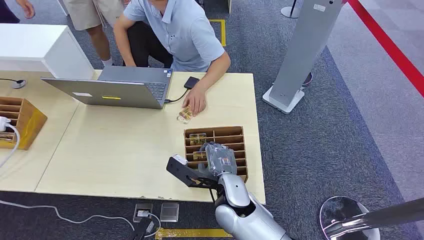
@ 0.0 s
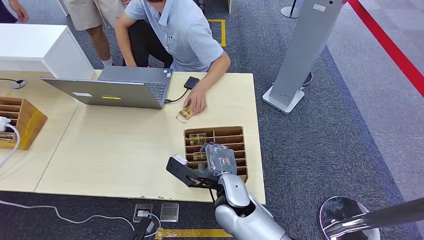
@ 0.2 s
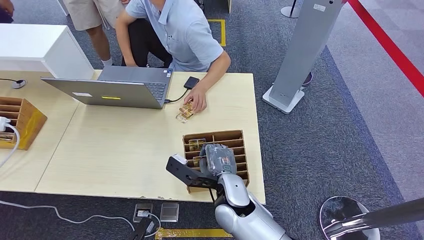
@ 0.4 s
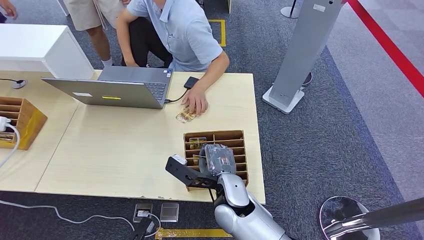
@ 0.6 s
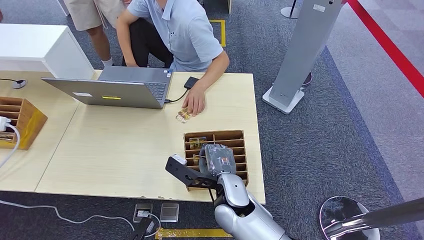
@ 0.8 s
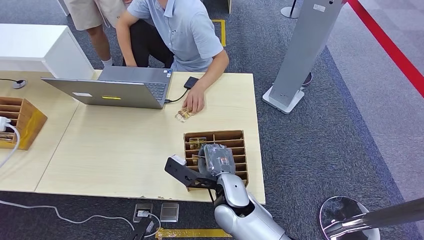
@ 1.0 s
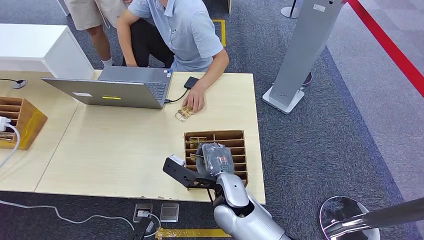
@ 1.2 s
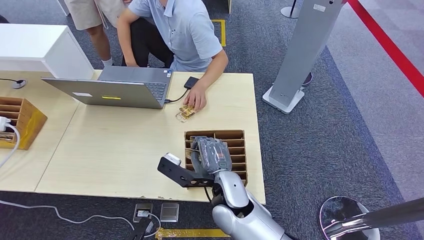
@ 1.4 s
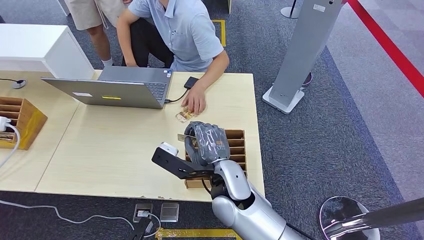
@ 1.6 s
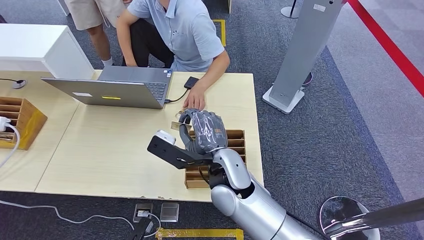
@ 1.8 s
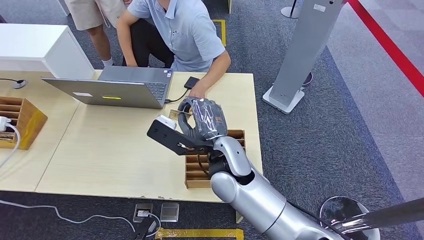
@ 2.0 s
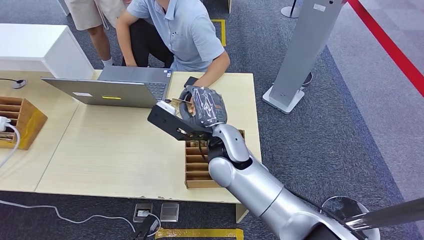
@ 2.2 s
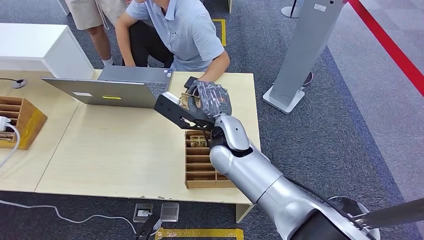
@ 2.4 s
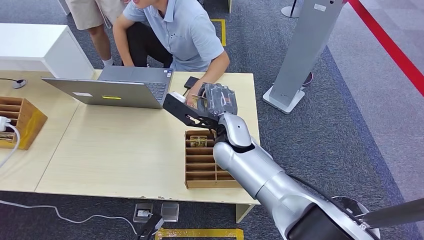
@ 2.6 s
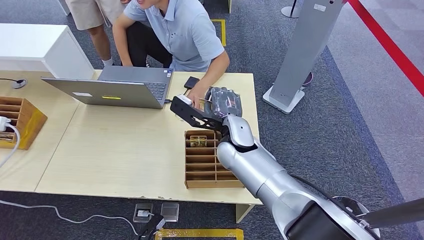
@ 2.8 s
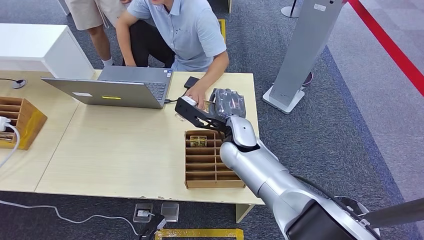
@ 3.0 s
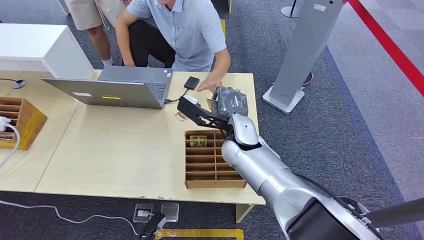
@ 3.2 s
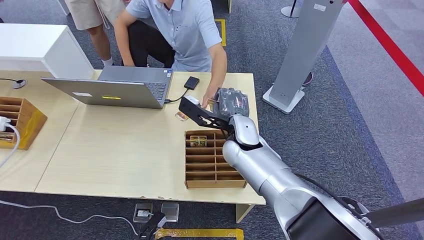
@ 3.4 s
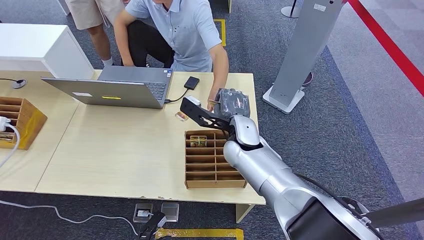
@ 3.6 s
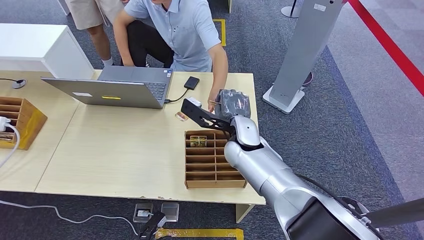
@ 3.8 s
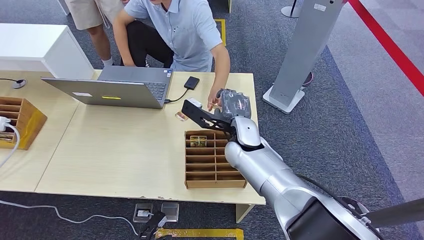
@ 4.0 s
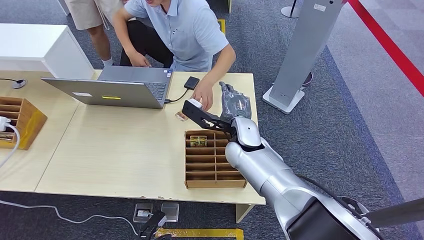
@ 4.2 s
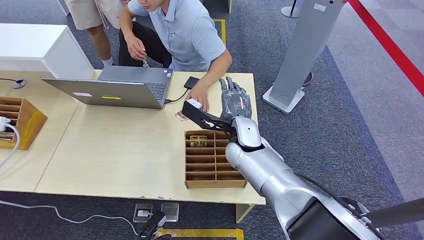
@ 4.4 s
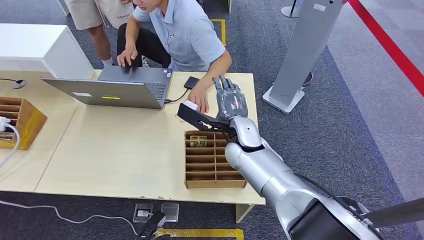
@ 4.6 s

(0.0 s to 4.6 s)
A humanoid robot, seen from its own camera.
Step, 0.0 s - 1.4 s: Pick up the room card from the card holder.
Step, 2.8 s - 4.4 s: Hand the room card to the target.
1.6 s - 3.0 s: The right hand is displaced forward by approximately 10 cm.
3.0 s - 4.6 s: The hands stay close to where they were, moving slightly.
